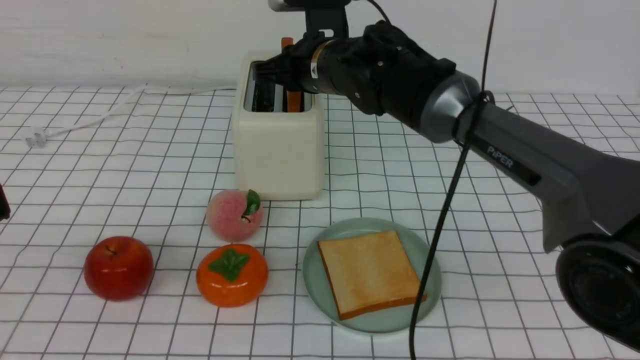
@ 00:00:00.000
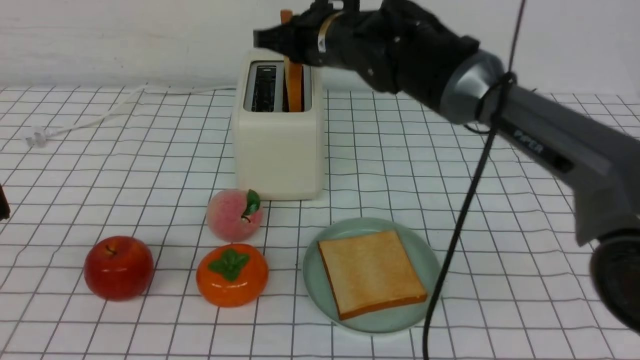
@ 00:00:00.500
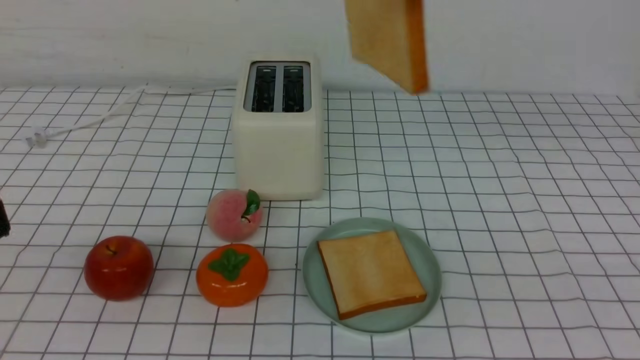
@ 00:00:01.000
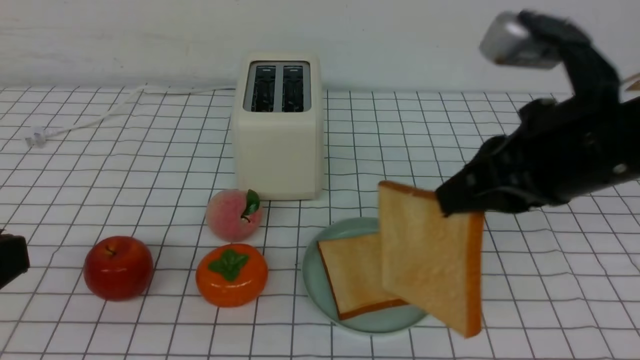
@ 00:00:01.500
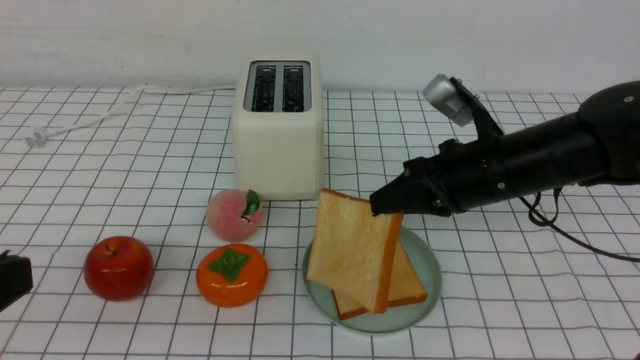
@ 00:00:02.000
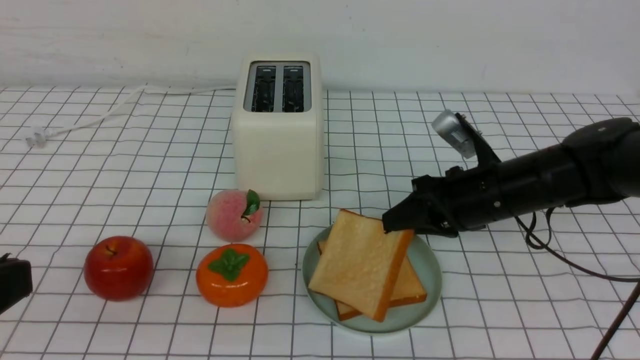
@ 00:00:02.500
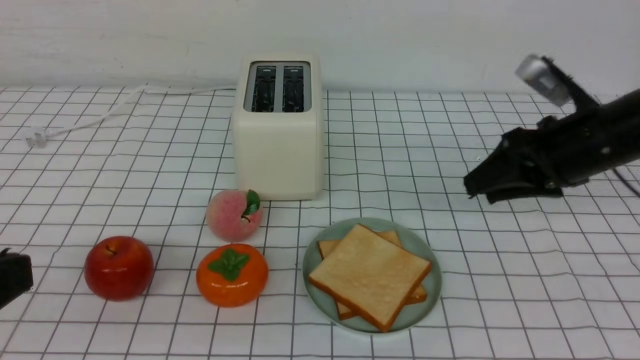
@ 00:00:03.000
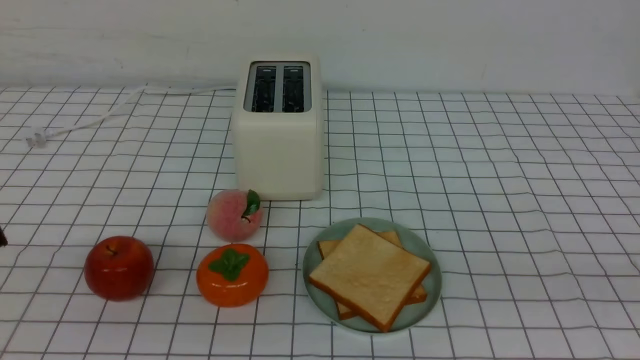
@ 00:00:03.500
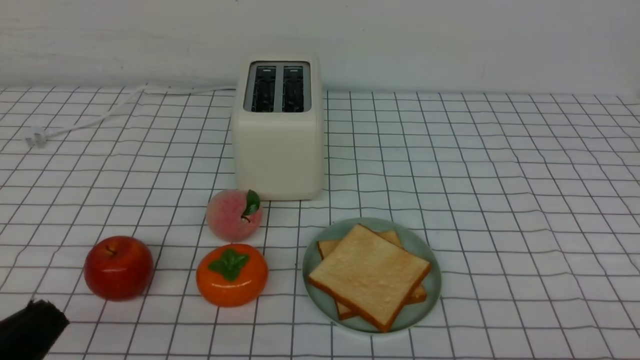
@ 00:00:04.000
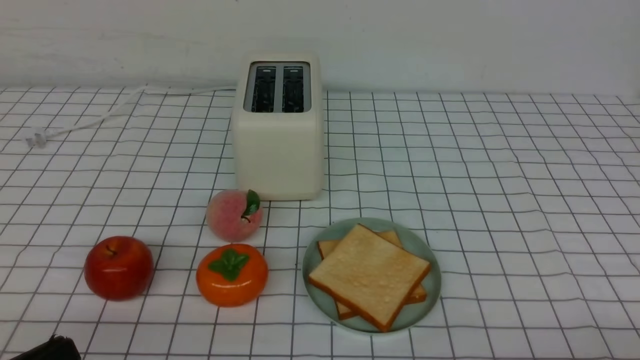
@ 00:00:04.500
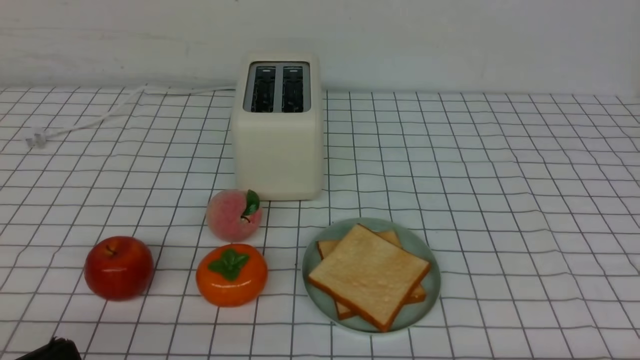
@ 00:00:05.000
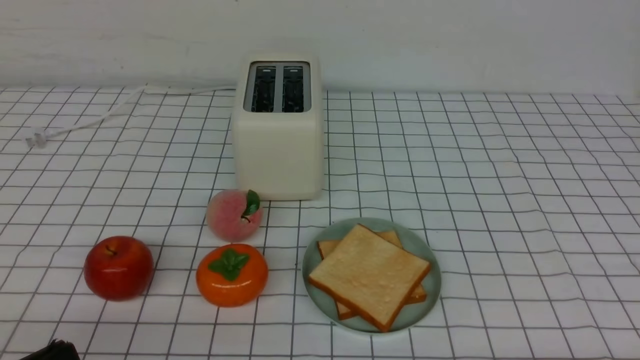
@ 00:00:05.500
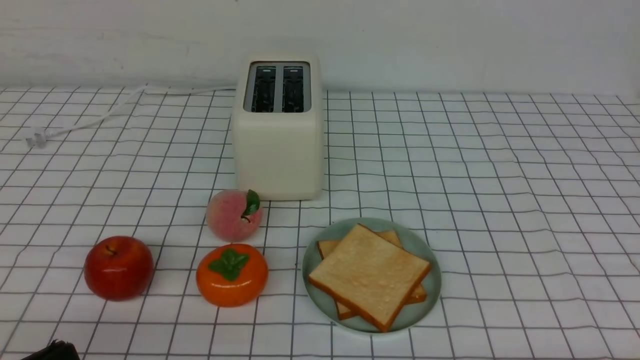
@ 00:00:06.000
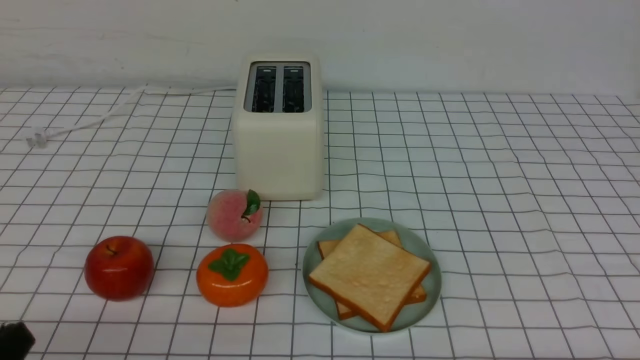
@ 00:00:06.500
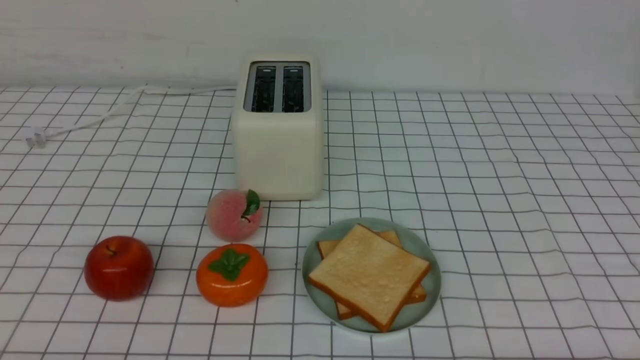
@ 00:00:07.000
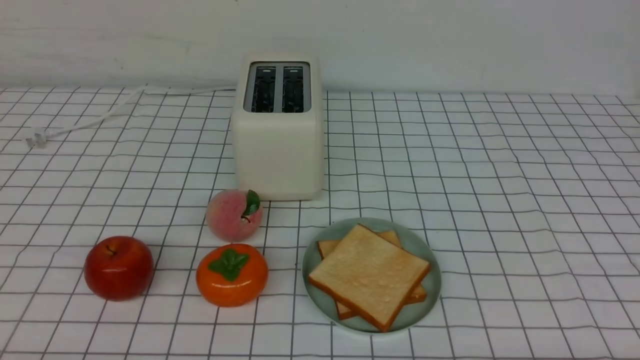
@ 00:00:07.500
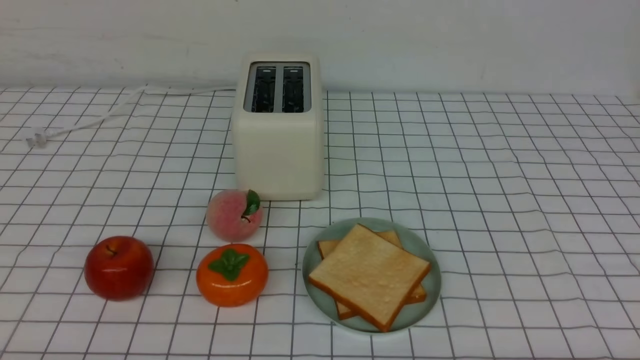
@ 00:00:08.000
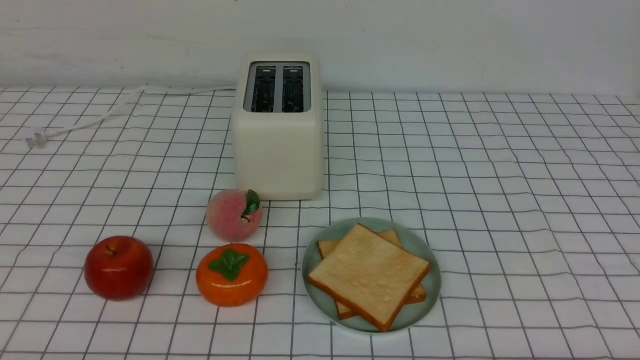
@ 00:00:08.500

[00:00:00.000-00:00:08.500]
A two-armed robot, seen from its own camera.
Task of the whole recording: take toasted bread from bread machine on white checkered table place on plate.
Step, 00:00:01.000 to 00:00:02.500: use the right arm to put a slice of bread into the plate.
00:00:00.000 to 00:00:02.000: The right gripper goes approximately 20 cm to the right and backward, and reaches about 20 cm upward, then returns.
00:00:02.000 to 00:00:04.000: The left gripper heads downward, covering some 10 cm. Meanwhile the right gripper shifts some 30 cm backward and to the right, and opens, then closes once more.
00:00:06.500 to 00:00:08.500: There are only small adjustments of the grippers.
